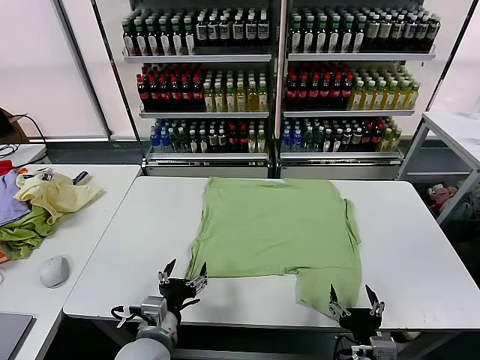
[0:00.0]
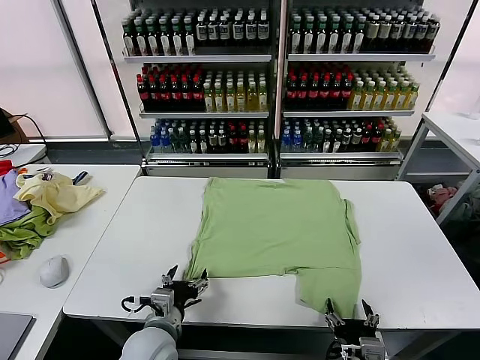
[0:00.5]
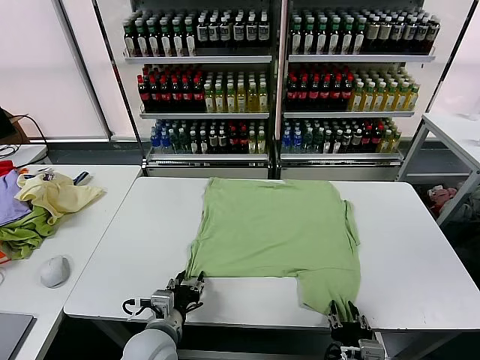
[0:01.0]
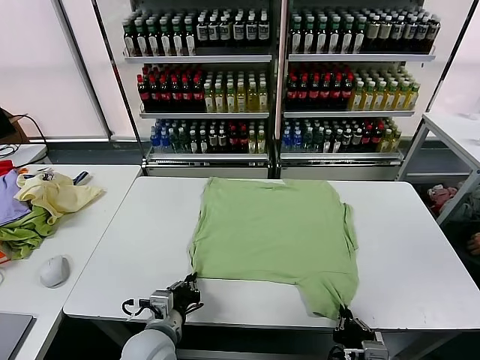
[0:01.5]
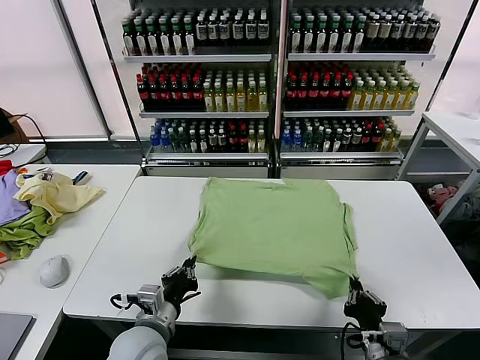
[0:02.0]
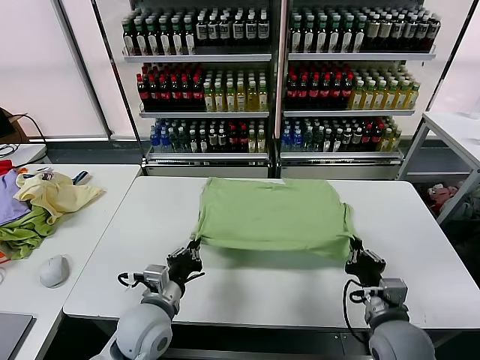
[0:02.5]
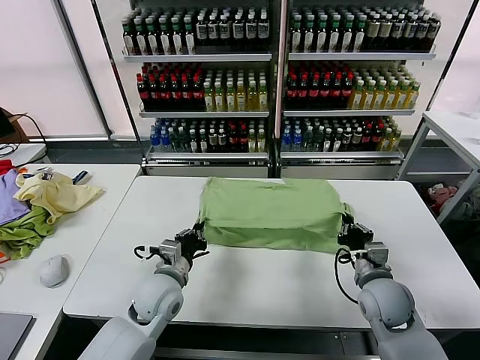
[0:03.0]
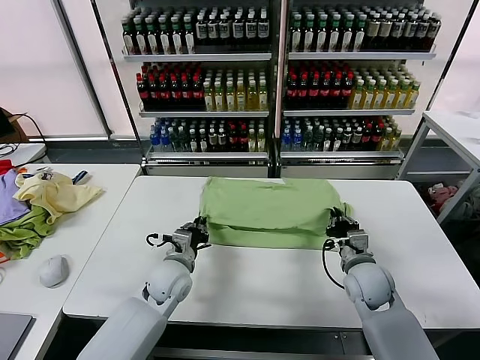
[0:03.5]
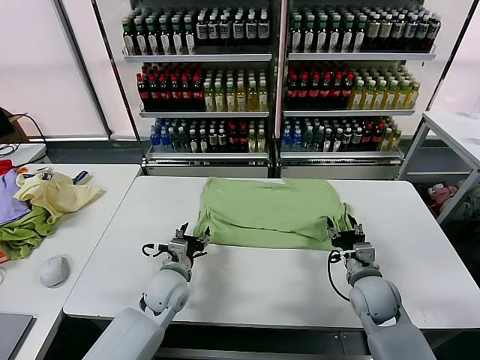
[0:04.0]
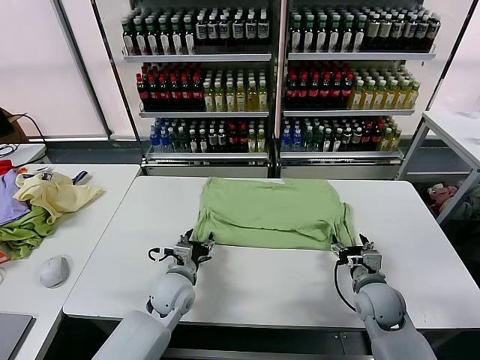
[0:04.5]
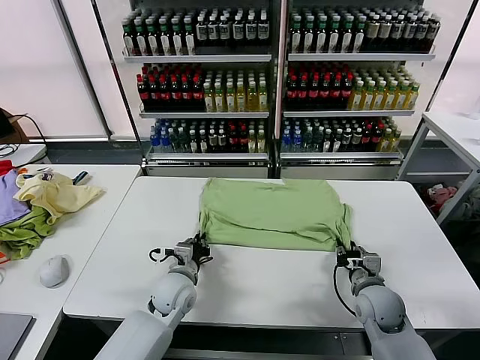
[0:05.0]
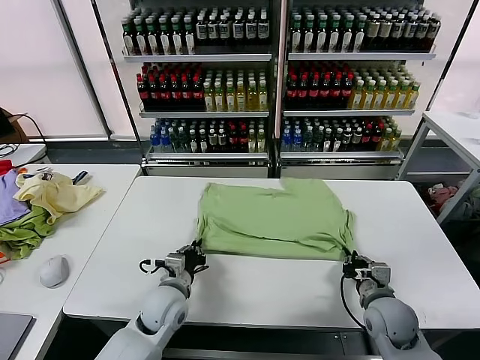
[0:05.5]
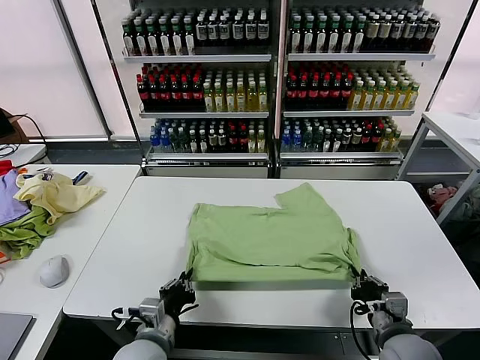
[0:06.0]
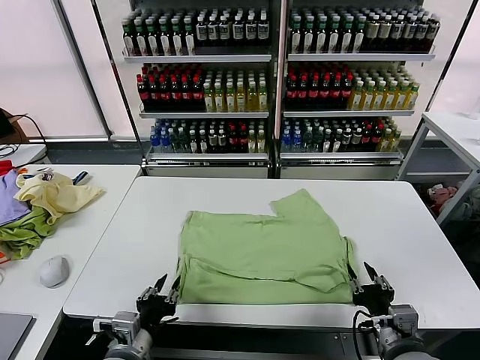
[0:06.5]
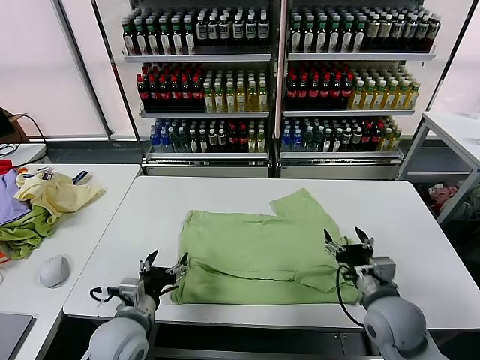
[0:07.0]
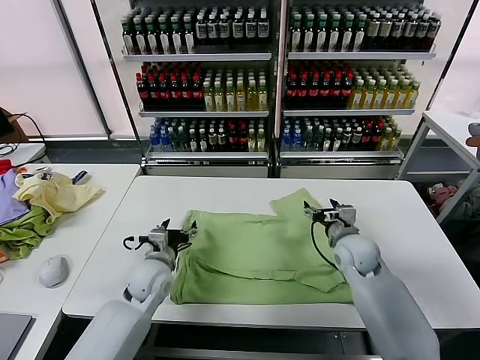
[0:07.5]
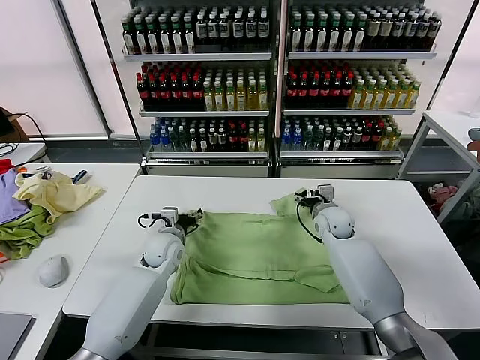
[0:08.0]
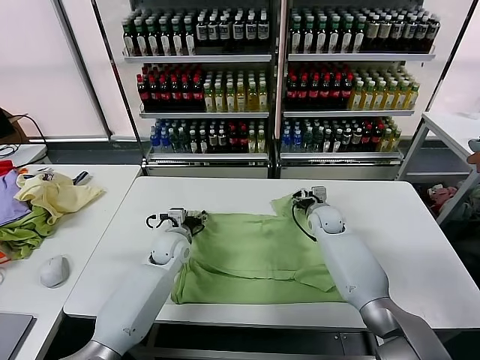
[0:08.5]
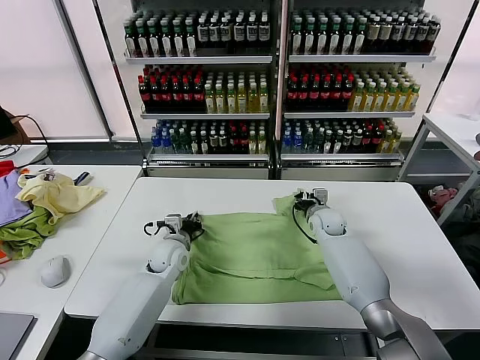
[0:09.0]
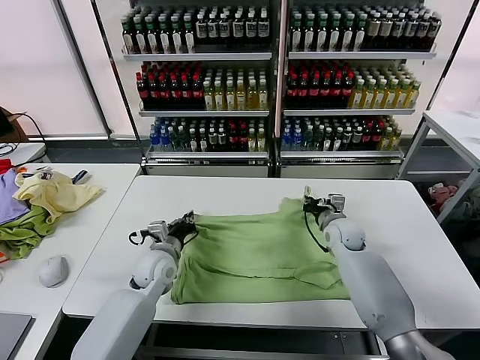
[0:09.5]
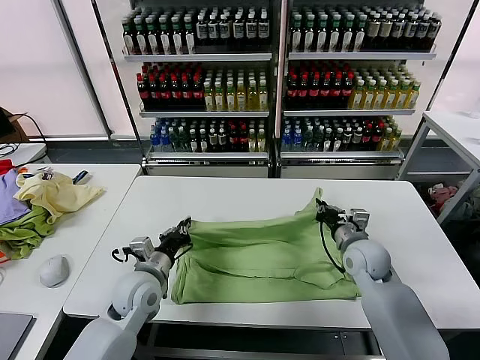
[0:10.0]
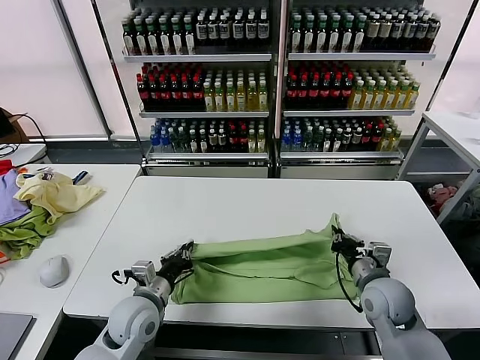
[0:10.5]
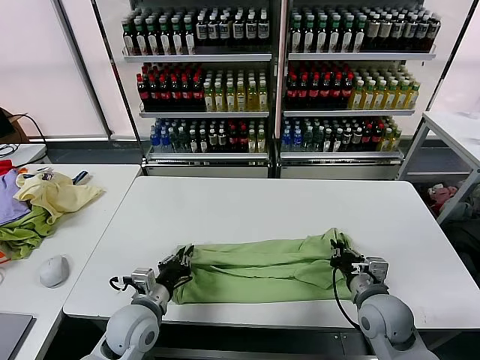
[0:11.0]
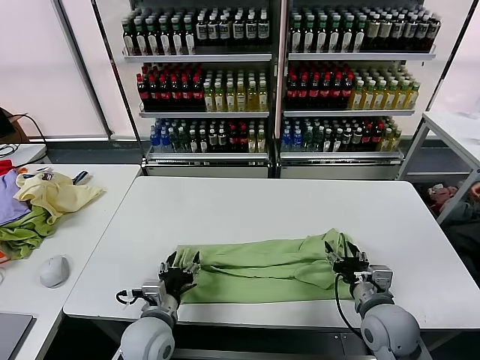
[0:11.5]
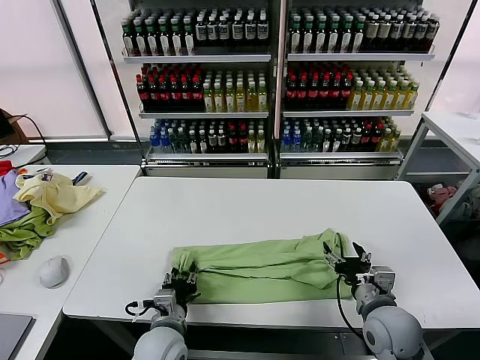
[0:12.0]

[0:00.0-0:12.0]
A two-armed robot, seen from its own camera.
Task of the whole recording: fold and organize the clothes.
Step, 0:00.0 to 0:01.5: use both grippers simultaneously to clamp the lower edge of the clothing fabric.
Step, 0:02.0 to 0:03.5: use both grippers to drag the lower edge of the fabric forward and fold it over the upper edge.
Step, 0:04.0 to 0:06.0: Drag the clothes downward with both gripper.
Step, 0:06.5 to 0:09.0: use both grippers simultaneously to clamp the upper edge of the clothing fabric.
Step, 0:09.5 to 0:11.0: use both grippers to drag the upper edge of the fabric backward and fold it over the lower edge.
0:02.0 to 0:04.0: The two grippers go about 15 cm forward. The right gripper opens; the left gripper opens.
0:04.0 to 0:06.0: The two grippers go about 15 cm backward. The right gripper closes, while the left gripper closes.
0:06.0 to 0:08.0: The two grippers go approximately 30 cm forward. The right gripper opens, while the left gripper opens.
0:08.0 to 0:10.0: The two grippers go some 15 cm backward. The left gripper closes up. Meanwhile the right gripper closes its fingers.
0:10.0 to 0:12.0: The right gripper goes about 15 cm backward, and opens up, while the left gripper goes about 15 cm backward, to the right and downward, and opens up.

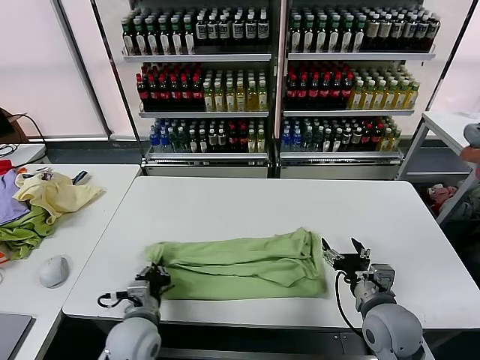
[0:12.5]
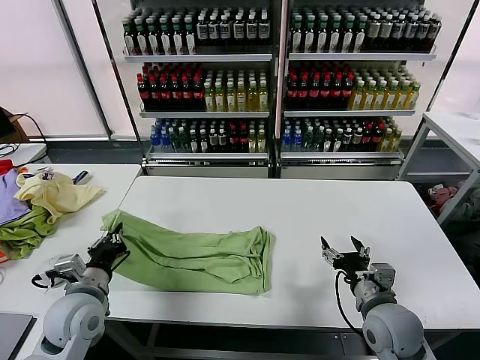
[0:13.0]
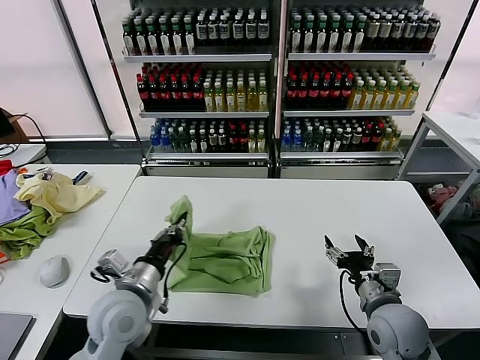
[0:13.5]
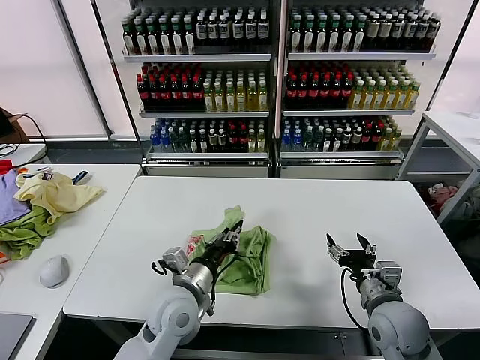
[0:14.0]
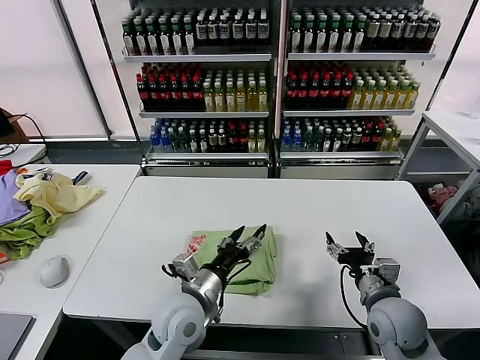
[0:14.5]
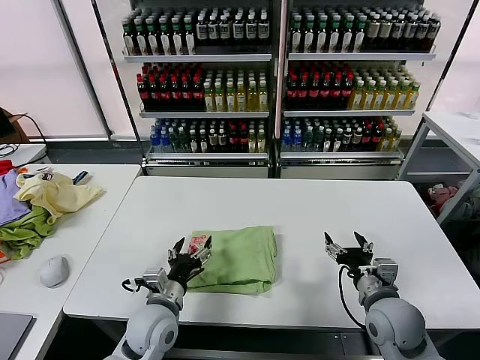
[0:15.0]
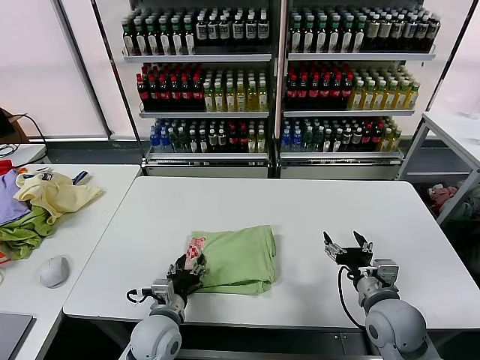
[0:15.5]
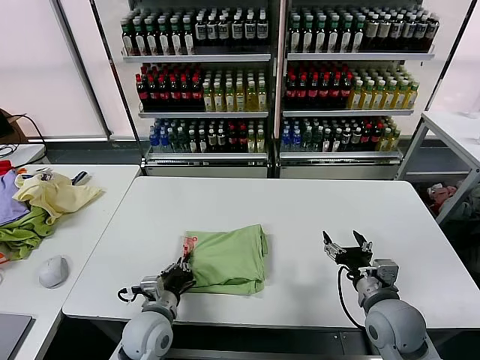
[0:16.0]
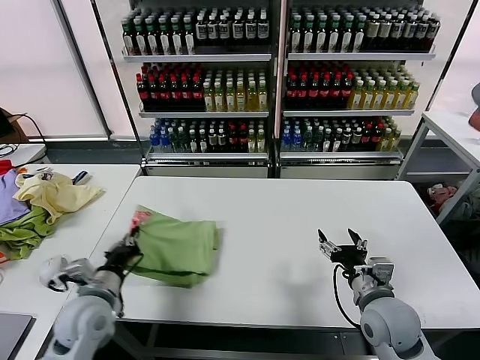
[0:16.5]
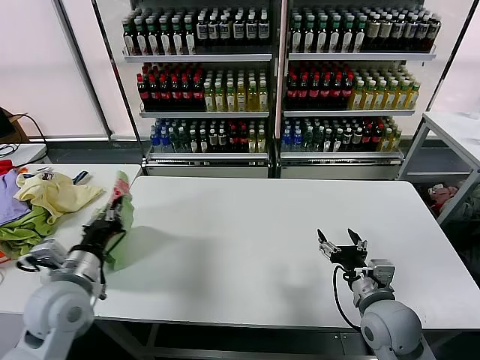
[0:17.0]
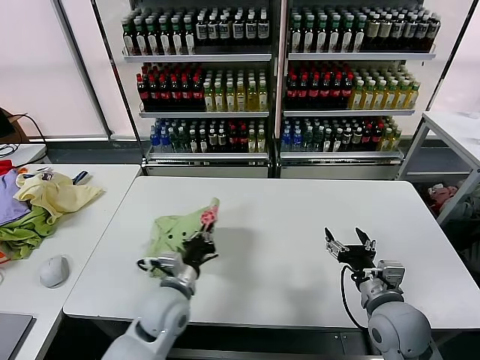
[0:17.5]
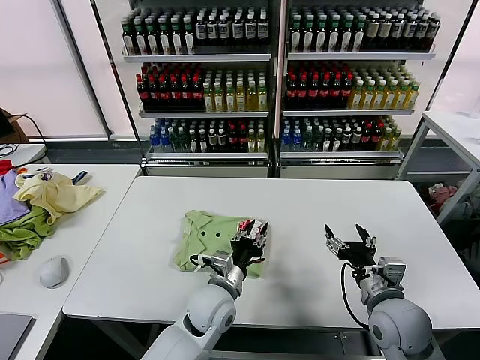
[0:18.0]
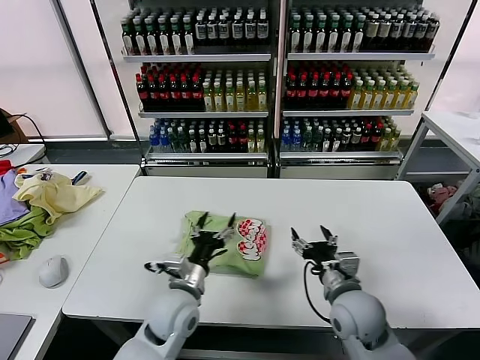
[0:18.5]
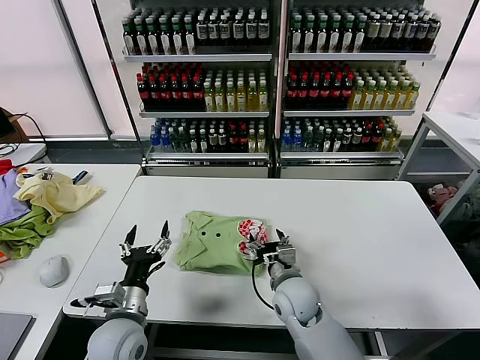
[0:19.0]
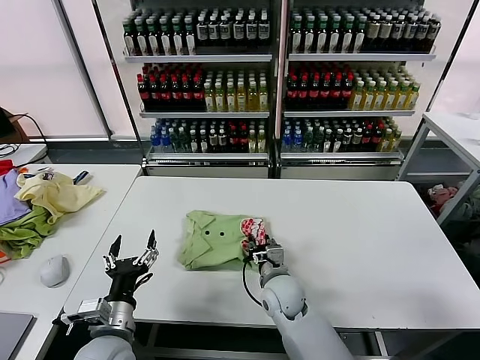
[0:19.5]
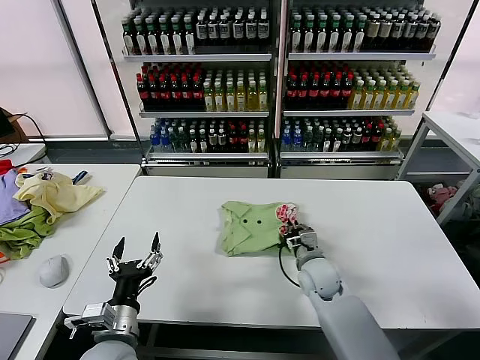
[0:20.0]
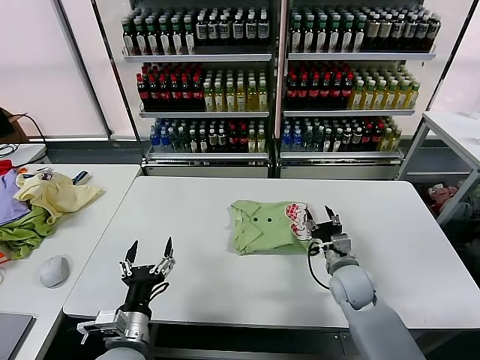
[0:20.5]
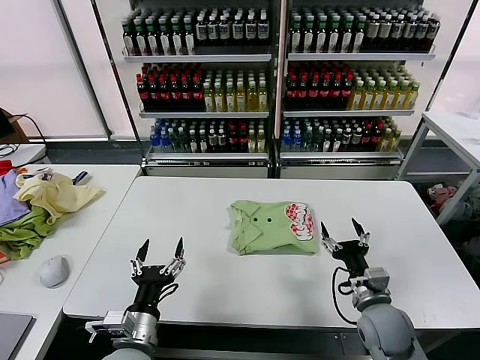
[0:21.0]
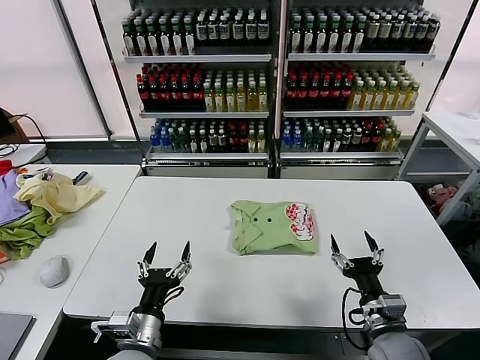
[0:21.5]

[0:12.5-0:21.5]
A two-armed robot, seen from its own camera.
Task of the whole recording: fold and organize the clothes.
Step, 0:12.5 to 0:14.0: use the left gripper to drag the left edge of the fabric to the left and folds it over the right edge.
Step, 0:14.5 to 0:18.0: Flip the folded clothes over with left gripper.
Step, 0:18.5 to 0:20.0: Drag the clothes to the center of the table.
0:12.5 to 0:14.5: The left gripper heads to the right and upward, covering roughly 10 cm, and opens up.
0:14.5 to 0:17.0: The left gripper goes some 20 cm to the left, and closes its fingers.
0:17.0 to 0:19.5: The right gripper heads to the left, forward and downward, covering about 20 cm, and closes its fingers. The left gripper shifts approximately 10 cm downward and backward, goes to the right and returns, some 25 cm each way, and opens up.
0:19.5 to 0:21.5: The left gripper changes place by roughly 5 cm, while the right gripper moves to the right and backward, about 25 cm, and opens its fingers.
